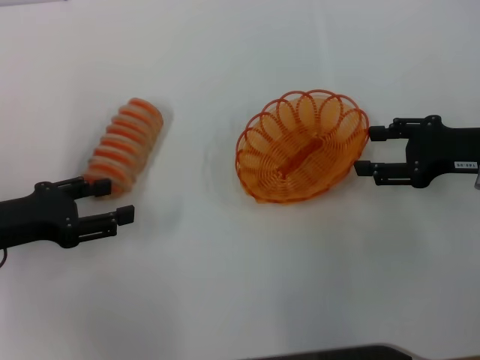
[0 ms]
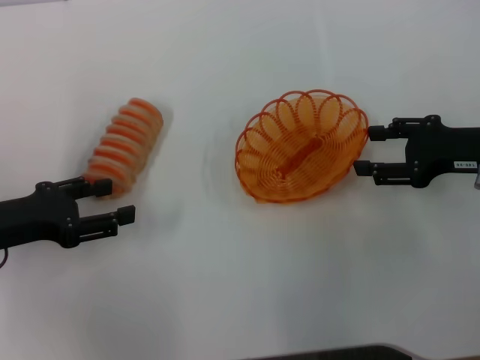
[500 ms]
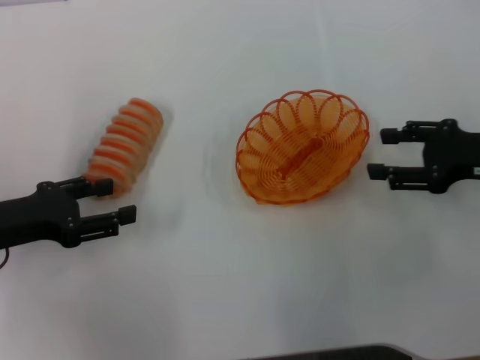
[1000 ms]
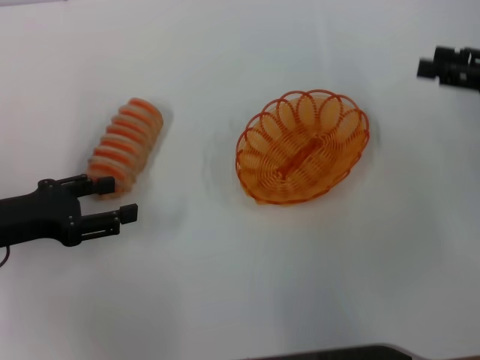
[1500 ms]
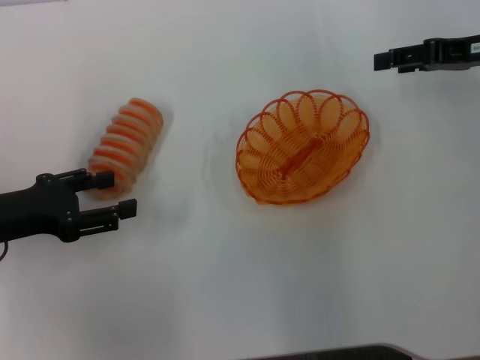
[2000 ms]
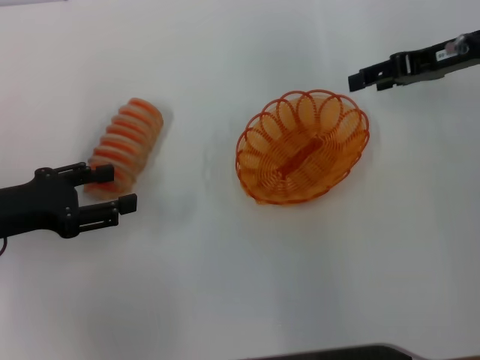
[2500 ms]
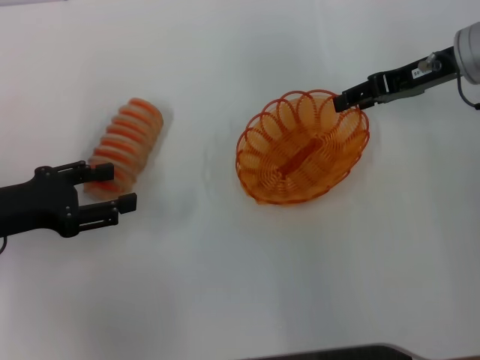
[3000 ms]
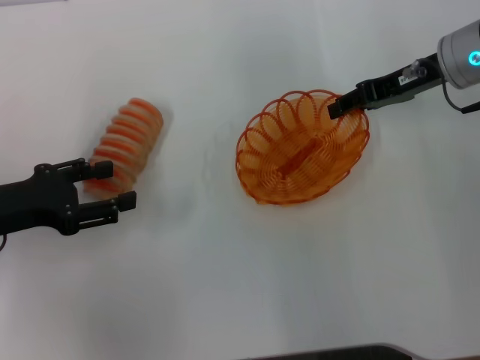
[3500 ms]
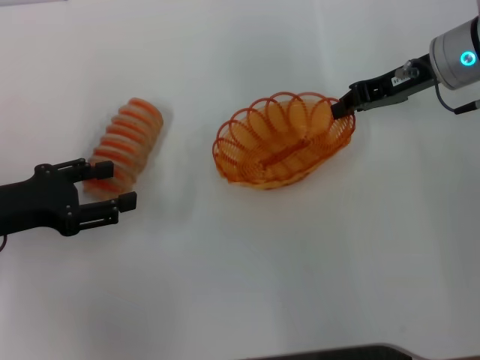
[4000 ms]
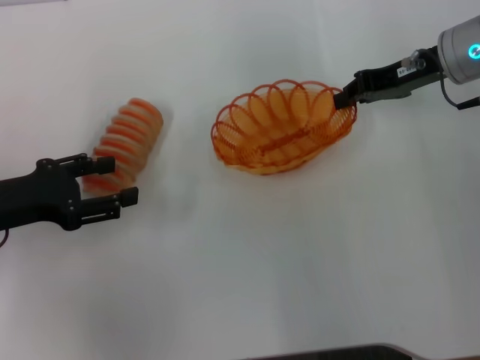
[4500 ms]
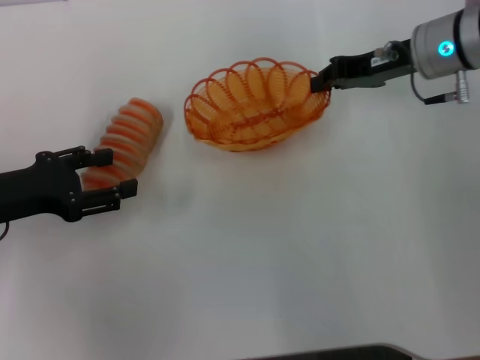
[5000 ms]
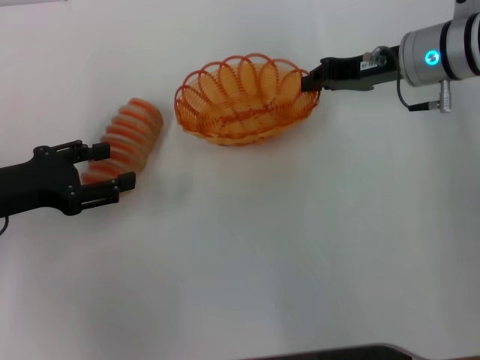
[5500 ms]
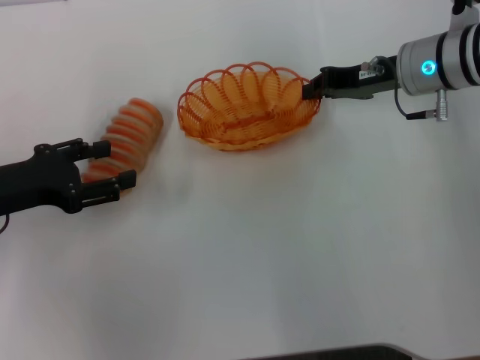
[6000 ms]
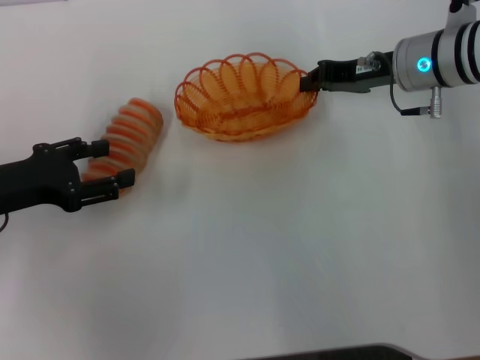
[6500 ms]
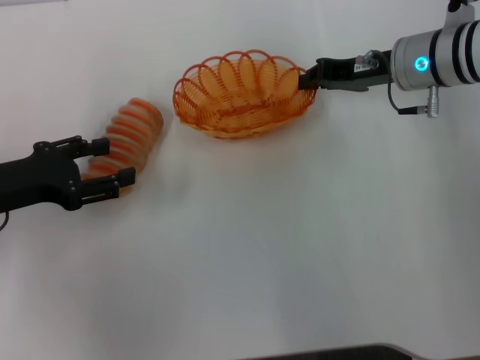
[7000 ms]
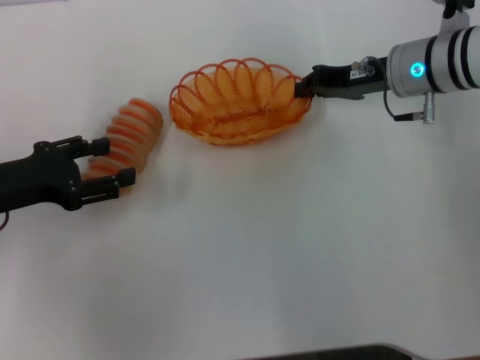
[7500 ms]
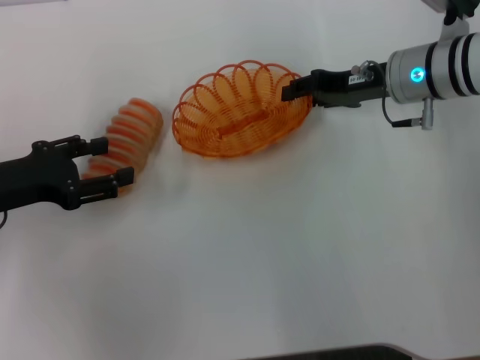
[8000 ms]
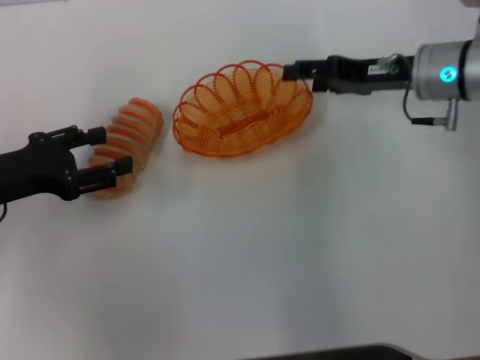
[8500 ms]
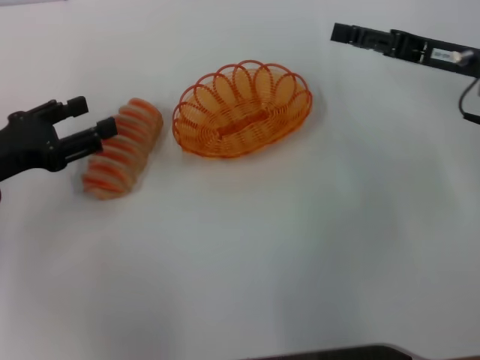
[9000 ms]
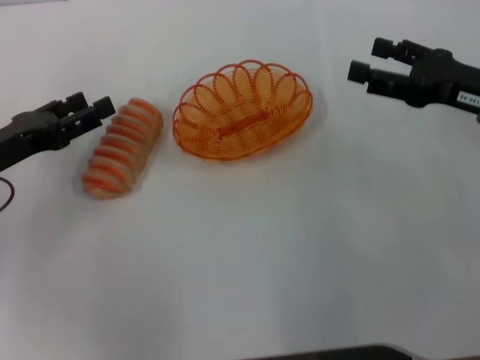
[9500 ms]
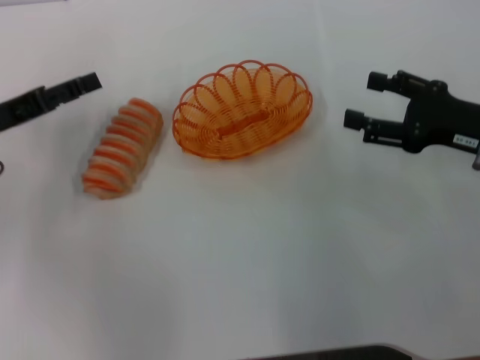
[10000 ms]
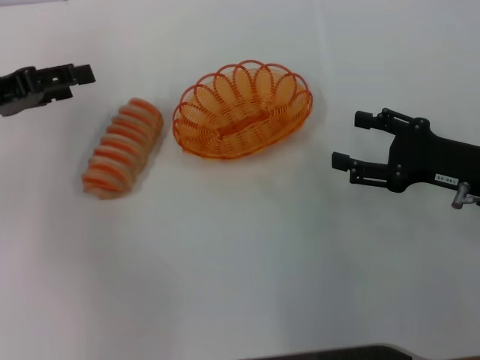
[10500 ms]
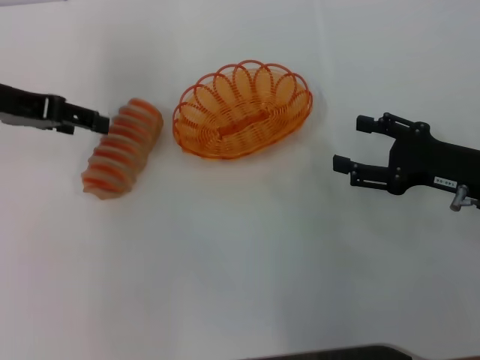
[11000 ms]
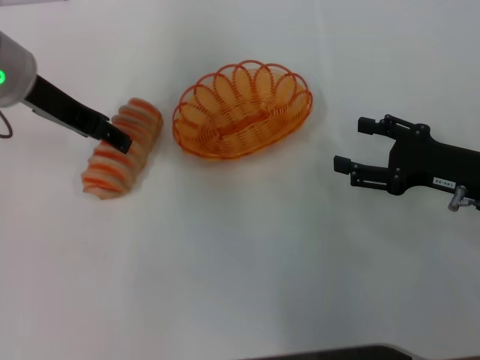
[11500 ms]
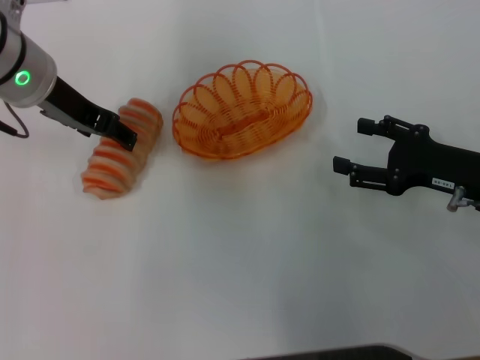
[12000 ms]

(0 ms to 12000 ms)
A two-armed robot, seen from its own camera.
Step, 0 ms - 4500 ms: Pick up the basket with the right gripper.
Step, 5000 ms - 9000 ms: Place the basket in the center of view with the right gripper.
0 ms - 2000 ms: The right gripper travels forward and upward by about 10 cm.
2000 ms - 4000 ms: The right gripper is displaced to the left by some 5 cm, and closes its fingers.
4000 ms - 6000 ms: There are only small adjustments of the grippers.
6000 ms - 8000 ms: The grippers move only a little.
8000 ms - 10000 ms: The right gripper shifts some 15 cm backward and to the right, and opens up.
10000 ms - 12000 ms: The left gripper heads to the right, upward and forward, covering some 15 cm.

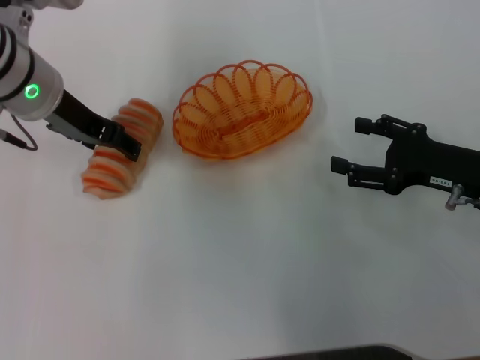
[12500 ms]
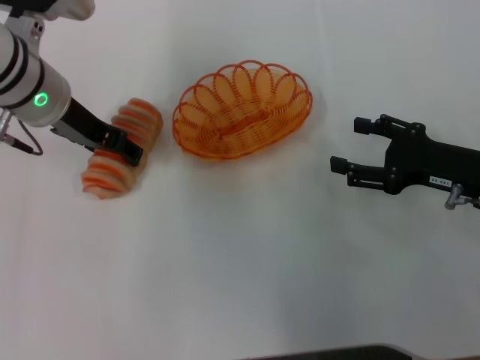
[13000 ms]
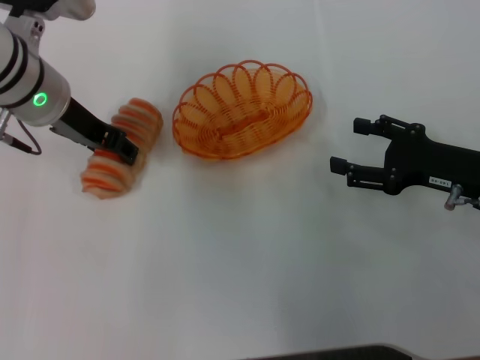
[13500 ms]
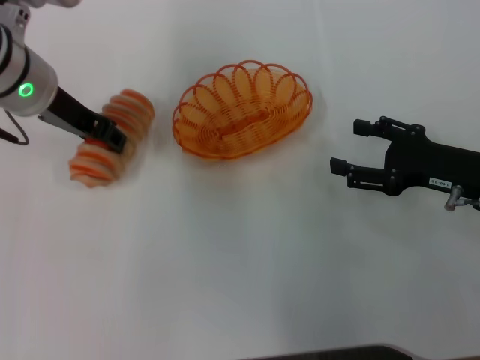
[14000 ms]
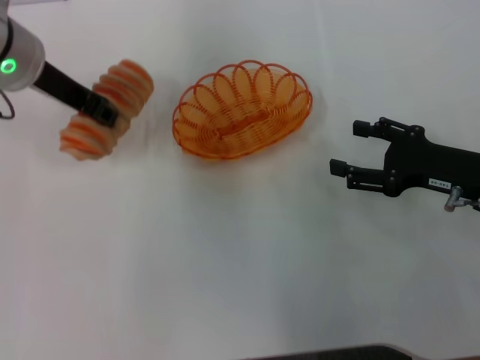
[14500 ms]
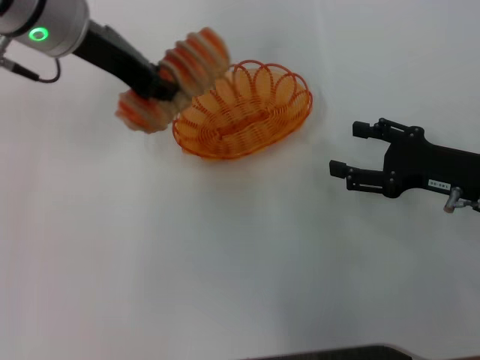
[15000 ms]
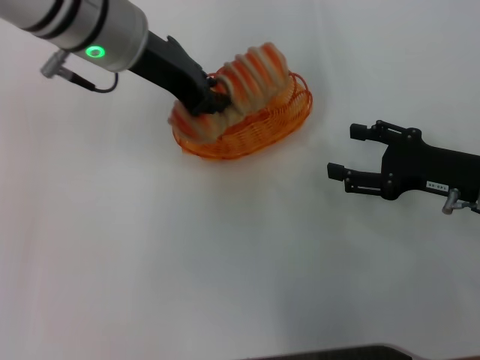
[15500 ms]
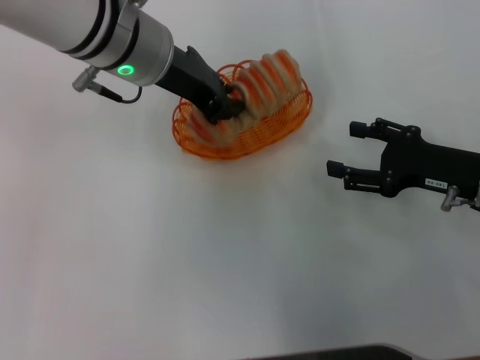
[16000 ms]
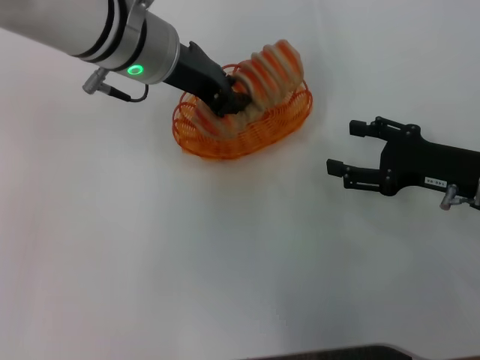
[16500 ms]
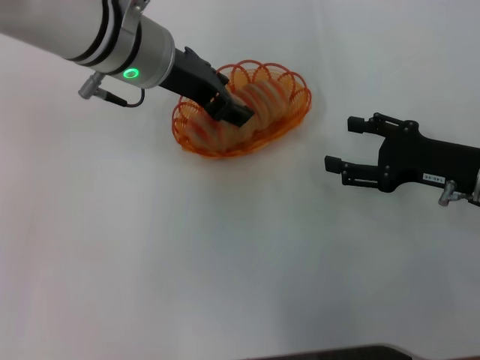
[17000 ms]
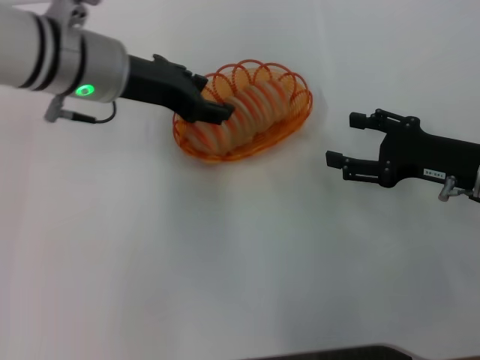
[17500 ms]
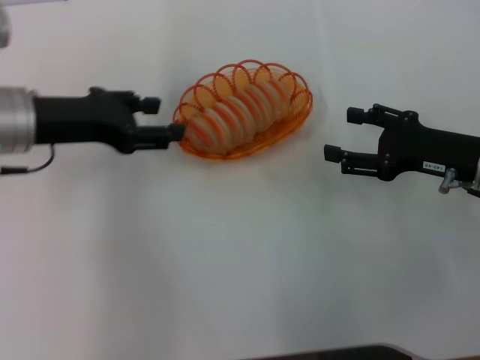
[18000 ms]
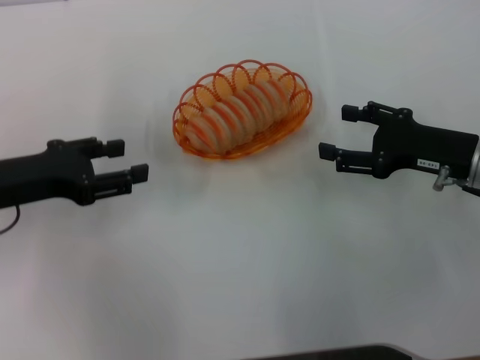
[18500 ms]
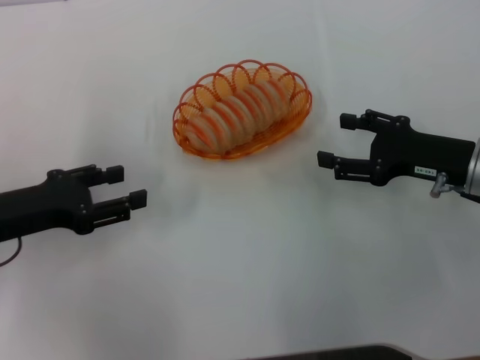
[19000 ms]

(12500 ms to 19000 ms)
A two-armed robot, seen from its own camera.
Step, 14500 ms - 18000 ms: Place the long bread into the basket with the left gripper.
12500 ms - 14500 ms: The left gripper closes its fingers.
14500 ms - 17000 ms: The left gripper travels to the right by approximately 10 cm, and closes, then opens again.
17000 ms - 19000 ms: The left gripper travels to the left, backward and downward by some 25 cm.
